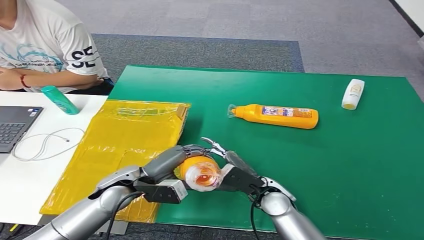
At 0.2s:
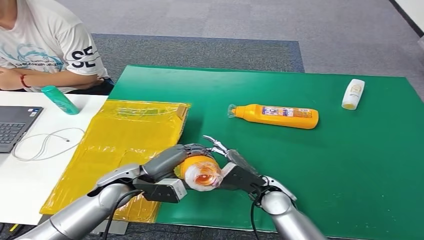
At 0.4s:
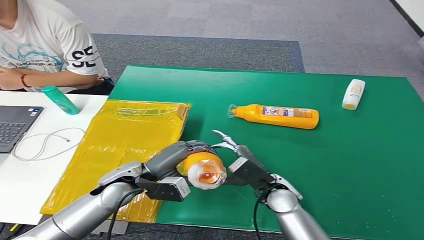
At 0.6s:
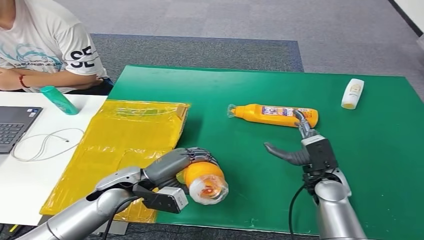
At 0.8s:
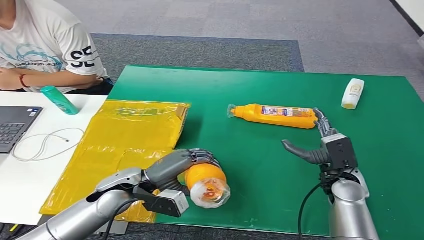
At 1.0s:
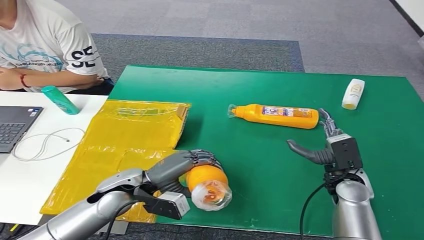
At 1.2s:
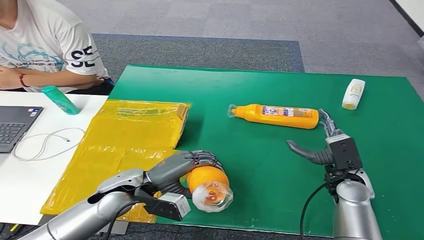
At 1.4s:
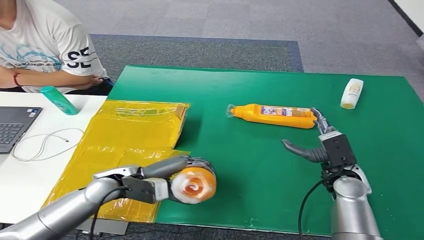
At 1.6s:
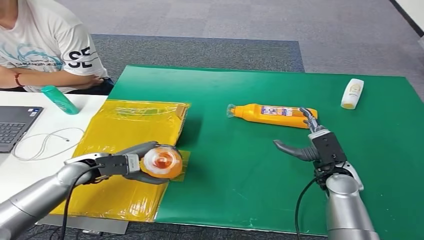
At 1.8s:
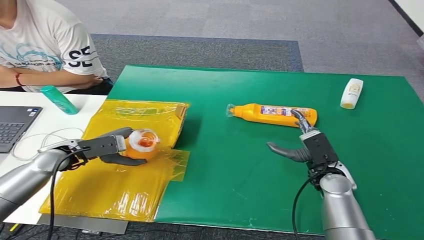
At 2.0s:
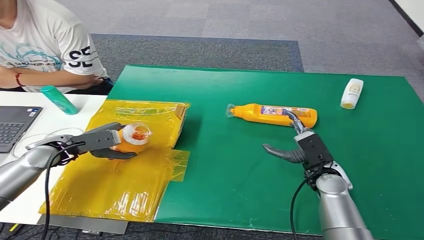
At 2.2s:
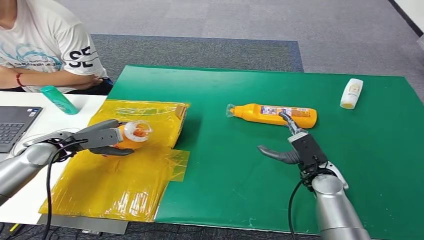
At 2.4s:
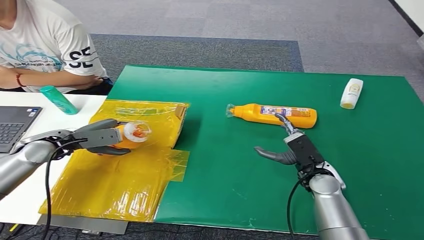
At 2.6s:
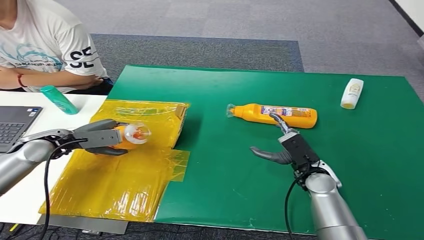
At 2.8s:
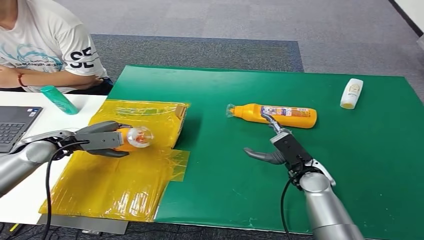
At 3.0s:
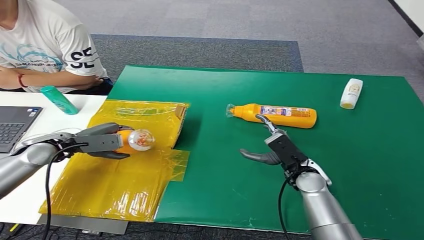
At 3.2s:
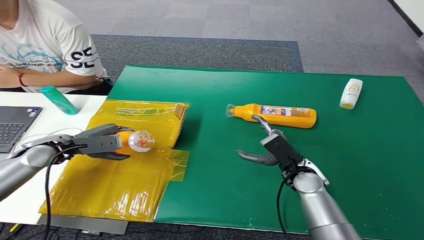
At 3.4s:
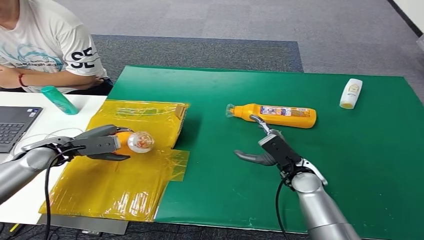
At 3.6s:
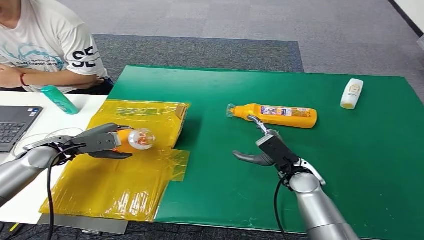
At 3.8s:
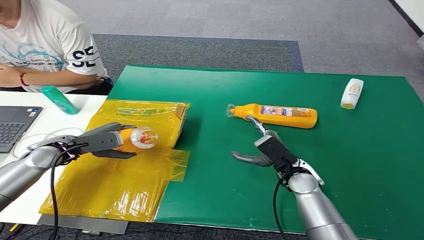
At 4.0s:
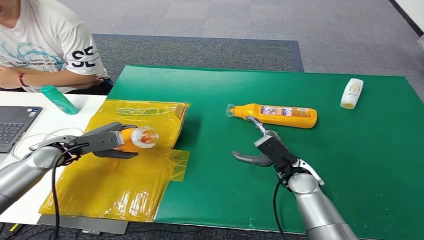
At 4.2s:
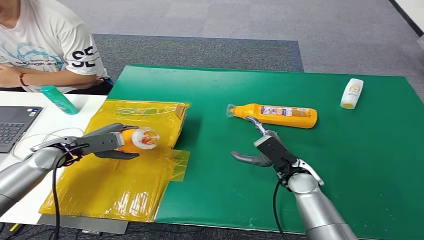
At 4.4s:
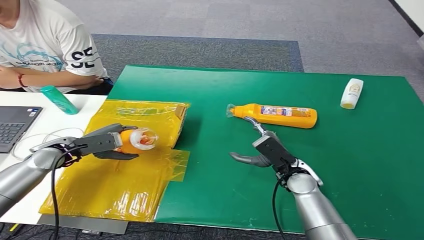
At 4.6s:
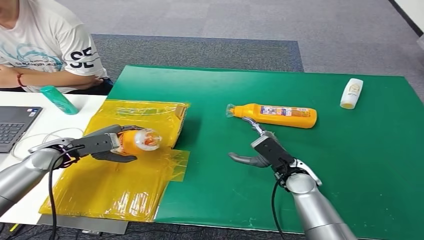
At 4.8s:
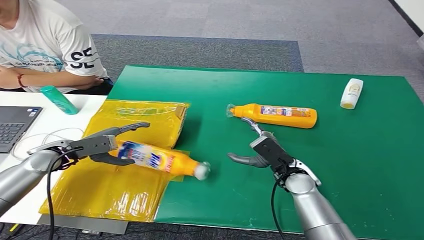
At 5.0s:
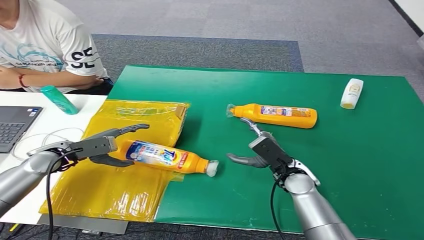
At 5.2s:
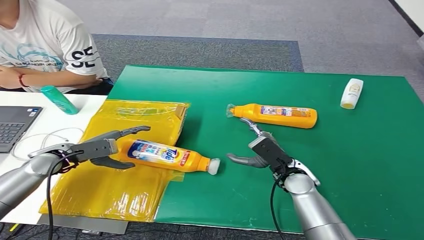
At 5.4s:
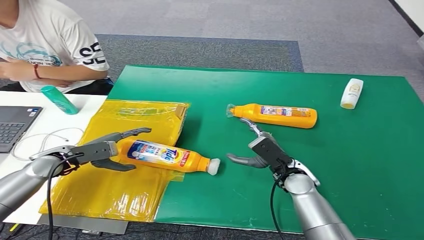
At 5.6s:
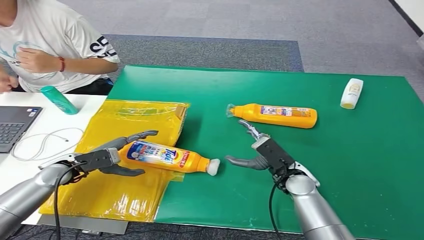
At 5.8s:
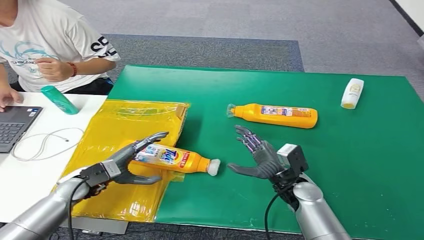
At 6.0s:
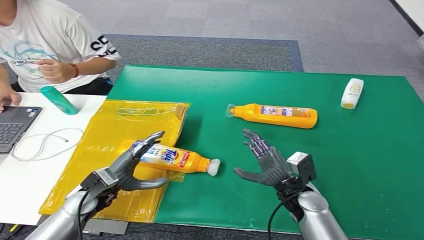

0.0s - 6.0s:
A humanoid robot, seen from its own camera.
Step, 0.0s - 6.0s: Turn the bottle to the front side.
1.6s - 3.0s: The left hand moves to the left, roughly 10 cm, while the right hand shifts roughly 5 cm to the left.
3.0s - 4.4s: There are only small adjustments of the hands.
